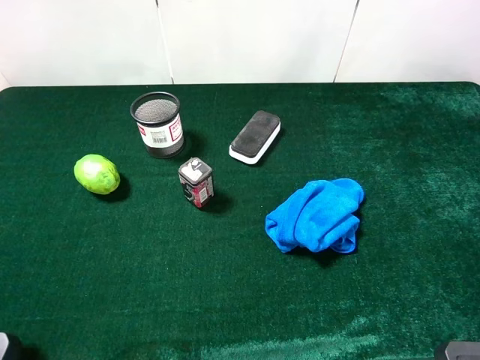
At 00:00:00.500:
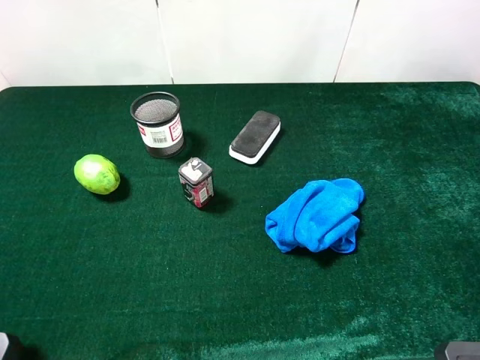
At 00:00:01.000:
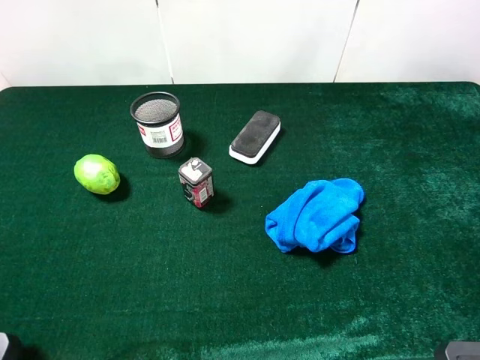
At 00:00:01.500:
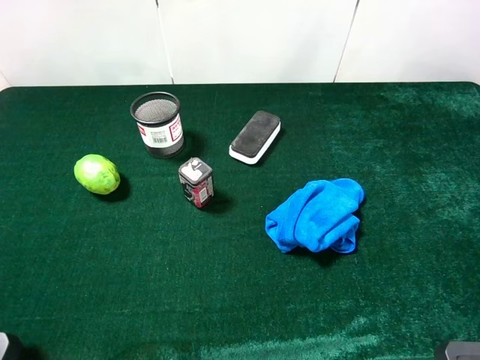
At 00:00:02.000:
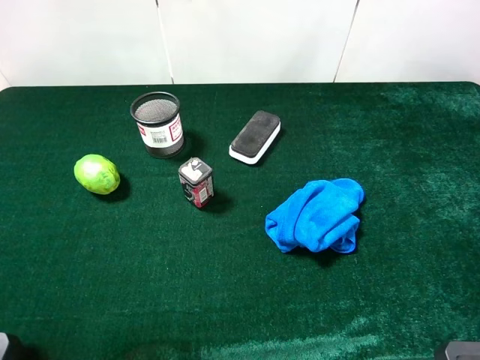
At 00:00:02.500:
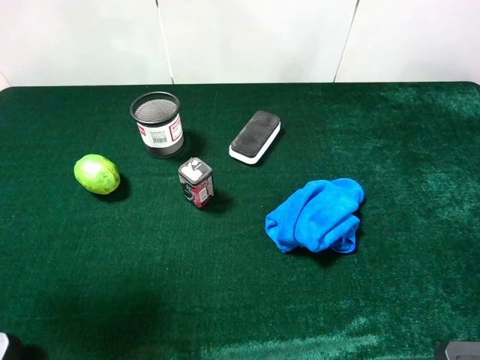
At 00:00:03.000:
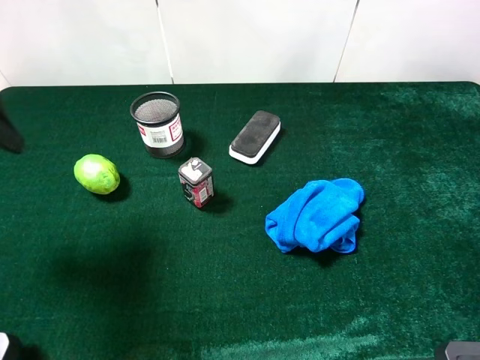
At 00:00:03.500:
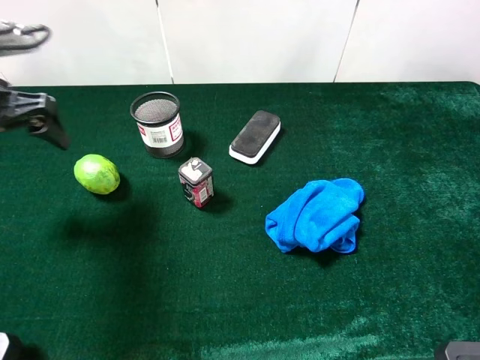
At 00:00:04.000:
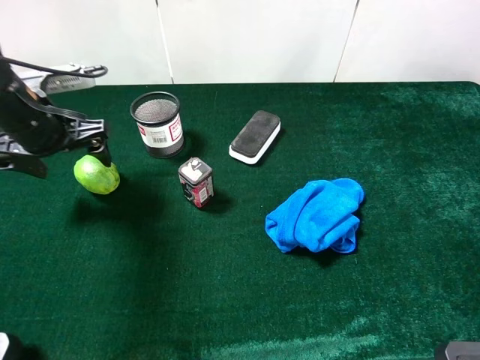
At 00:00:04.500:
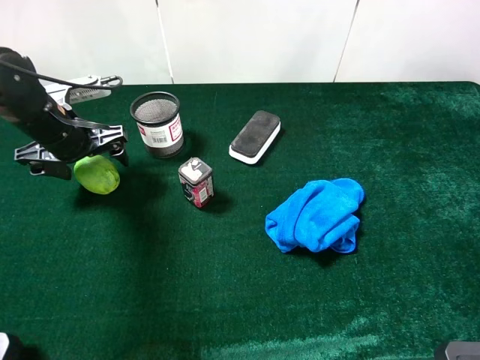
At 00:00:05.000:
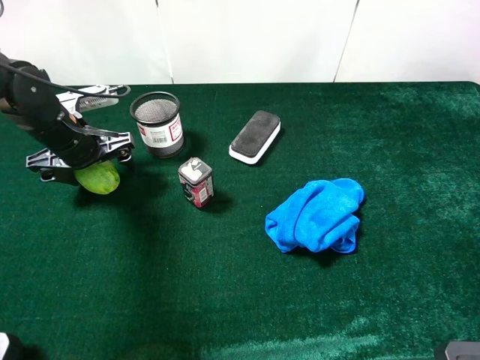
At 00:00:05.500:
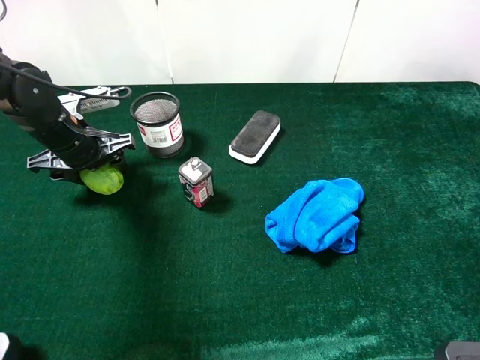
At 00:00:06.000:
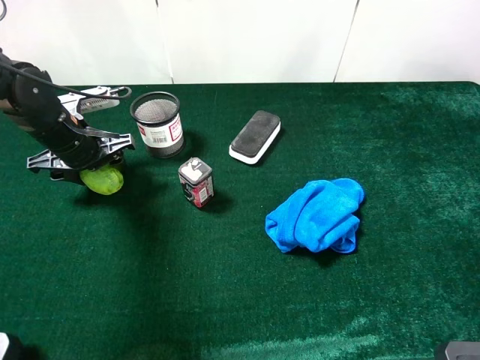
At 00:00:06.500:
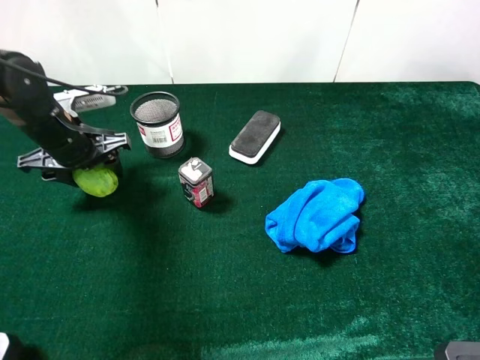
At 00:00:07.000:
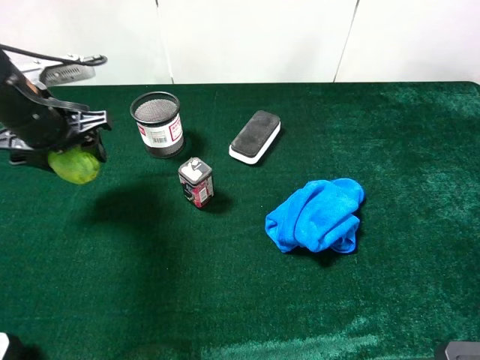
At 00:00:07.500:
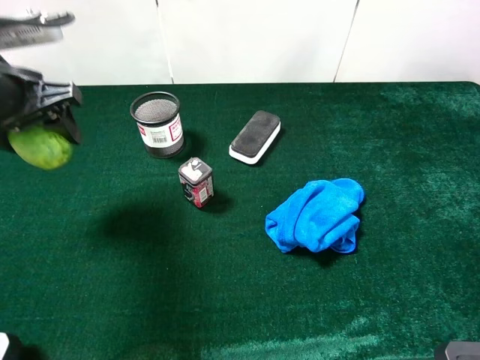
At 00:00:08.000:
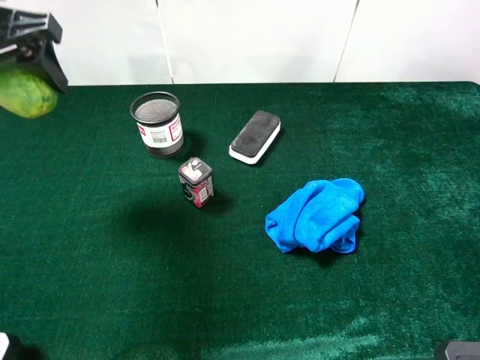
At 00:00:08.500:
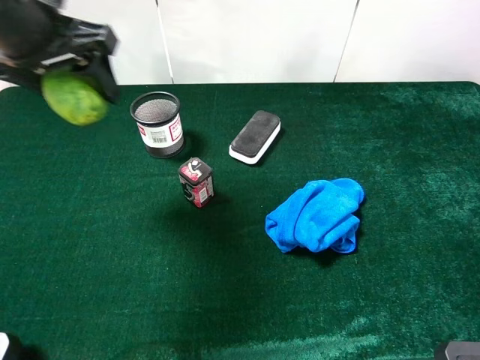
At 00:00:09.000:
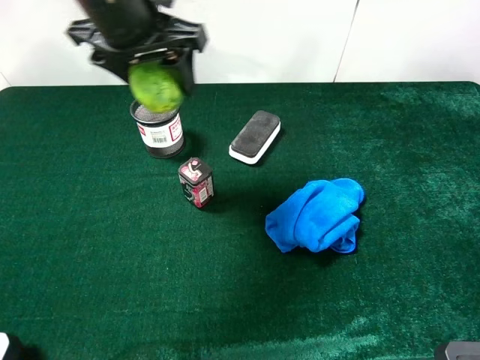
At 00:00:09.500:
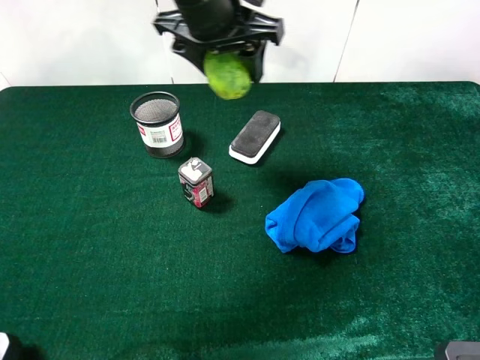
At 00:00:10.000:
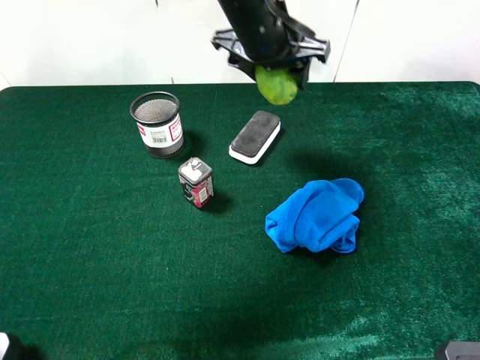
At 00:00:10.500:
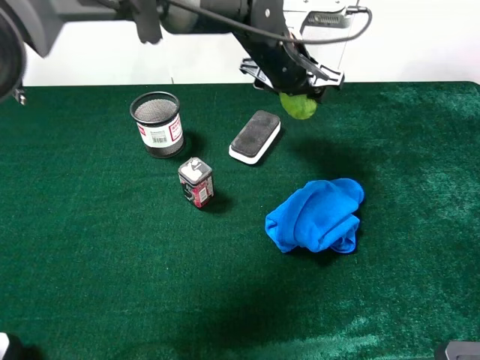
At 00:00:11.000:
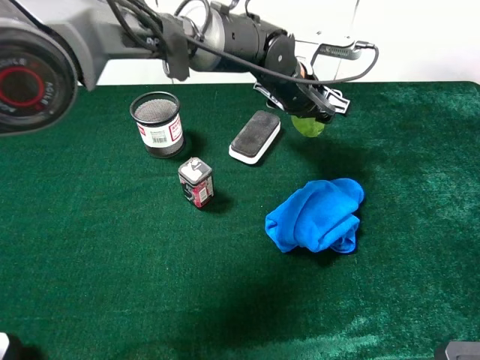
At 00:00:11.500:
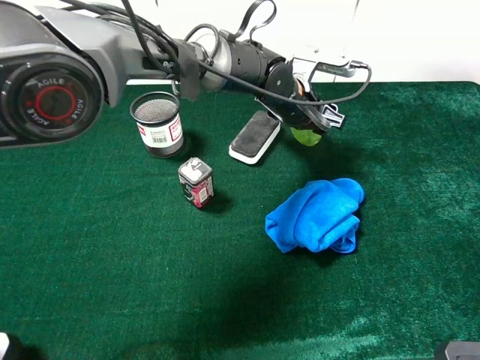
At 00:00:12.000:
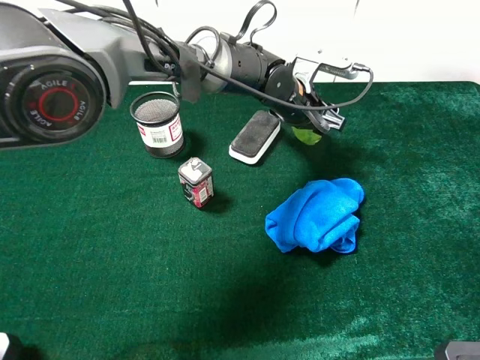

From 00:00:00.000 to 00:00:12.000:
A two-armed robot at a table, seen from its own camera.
Task of the whole recording: the gripper move the object.
From 00:00:02.000 to 00:00:04.000: The left gripper shifts roughly 30 cm forward and downward.
From 00:00:04.000 to 00:00:06.000: The left gripper moves downward, some 5 cm, and closes its fingers.
From 00:00:06.000 to 00:00:08.000: The left gripper shifts some 20 cm upward.
From 00:00:08.000 to 00:00:10.000: The left gripper goes roughly 30 cm to the right.
From 00:00:10.000 to 00:00:12.000: The left gripper shifts some 15 cm downward and to the right.

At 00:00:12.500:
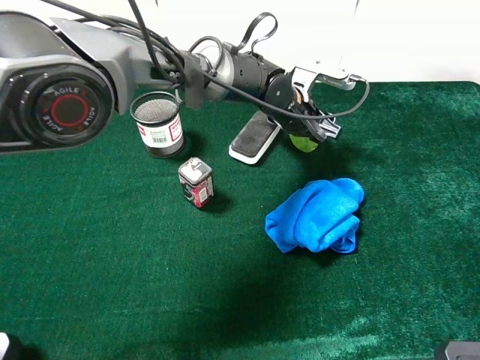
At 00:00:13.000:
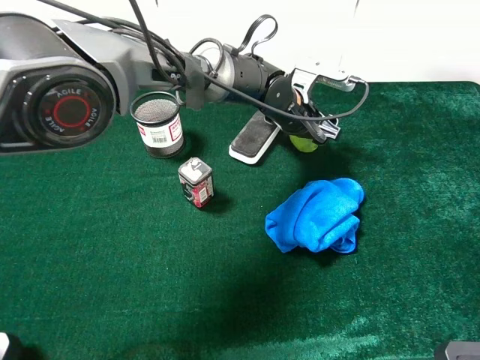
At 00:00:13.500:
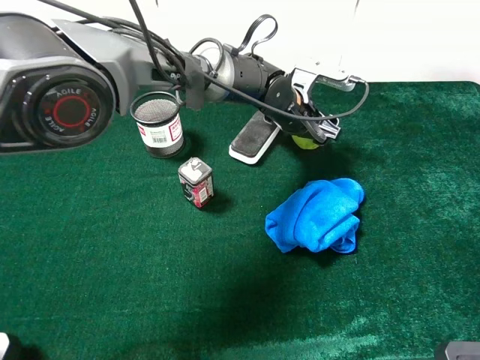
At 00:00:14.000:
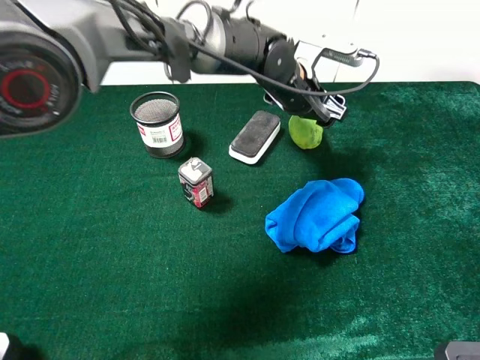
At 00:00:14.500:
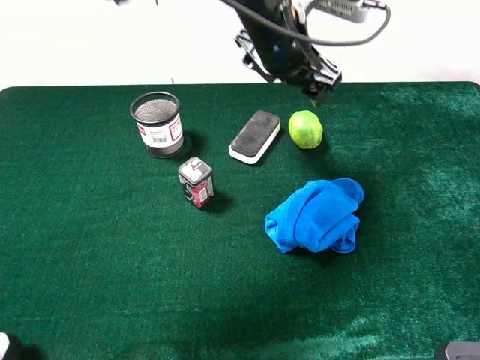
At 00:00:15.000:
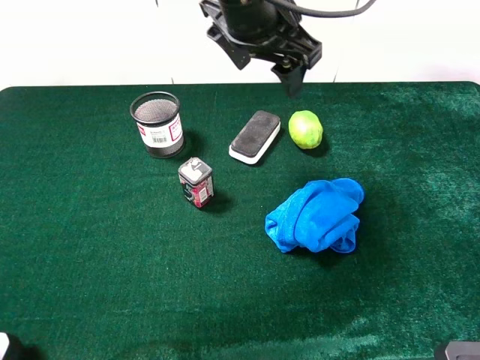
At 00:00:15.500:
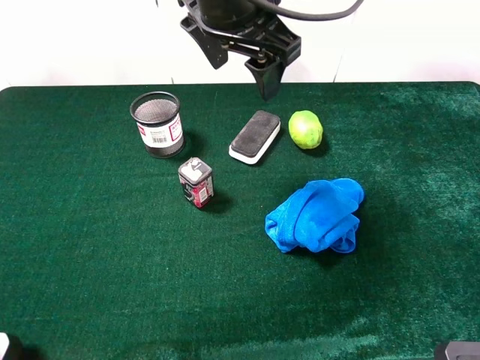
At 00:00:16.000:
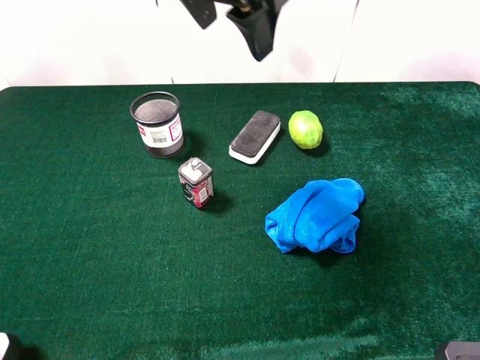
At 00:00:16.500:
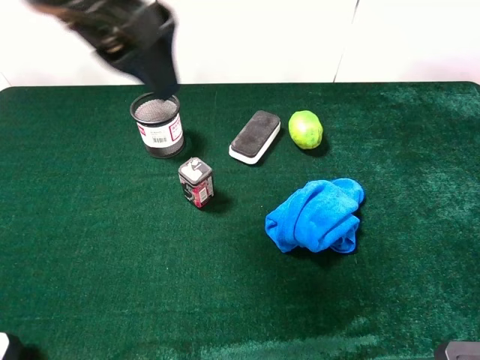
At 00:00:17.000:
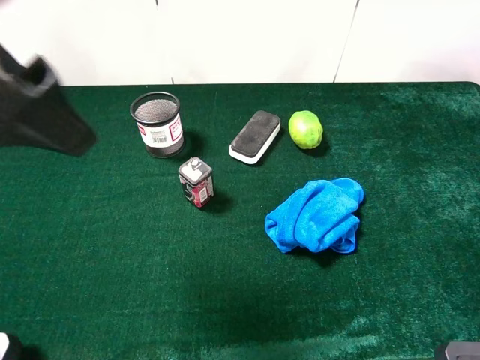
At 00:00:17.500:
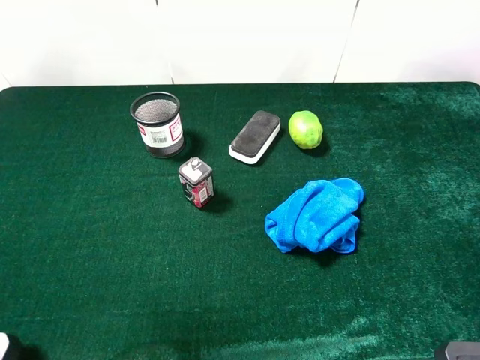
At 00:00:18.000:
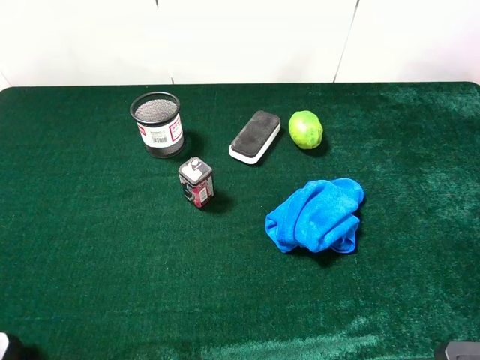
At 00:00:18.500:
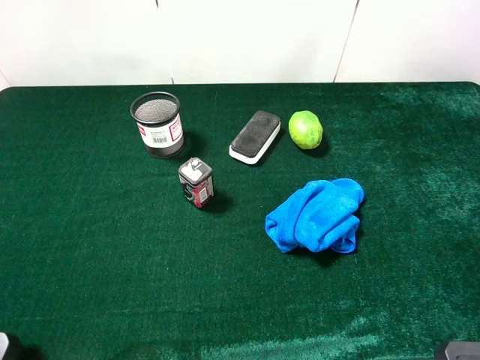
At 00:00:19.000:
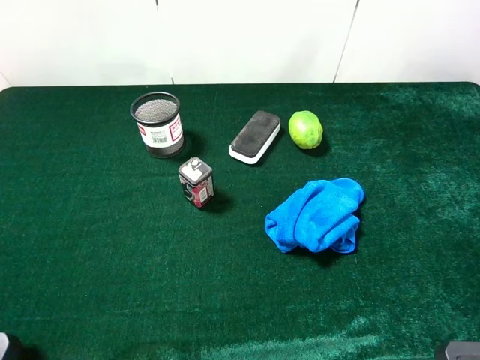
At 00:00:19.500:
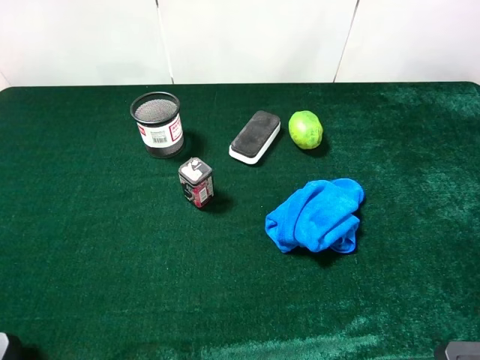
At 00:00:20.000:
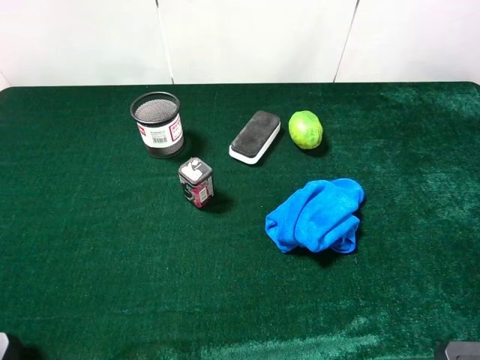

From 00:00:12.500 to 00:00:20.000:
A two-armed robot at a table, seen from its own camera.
Task of the whole recording: the gripper move the object.
From 00:00:12.500 to 00:00:14.500: The left gripper is displaced upward by about 15 cm, and opens.
From 00:00:14.500 to 00:00:16.500: The left gripper moves to the left, backward and upward, roughly 25 cm, and opens up.
From 00:00:16.500 to 00:00:18.000: The left gripper heads to the left and backward, covering some 25 cm.
